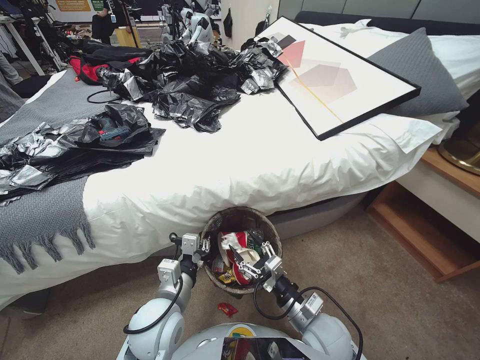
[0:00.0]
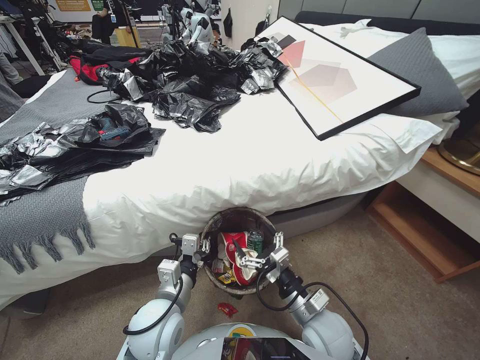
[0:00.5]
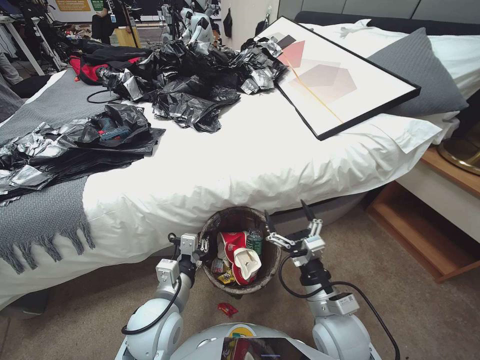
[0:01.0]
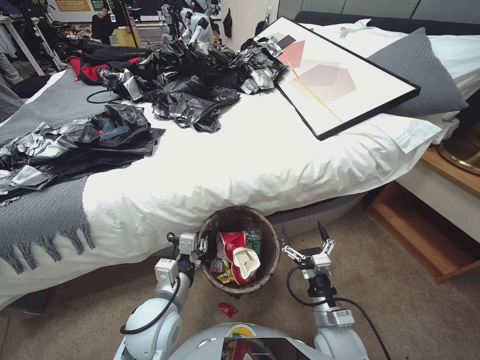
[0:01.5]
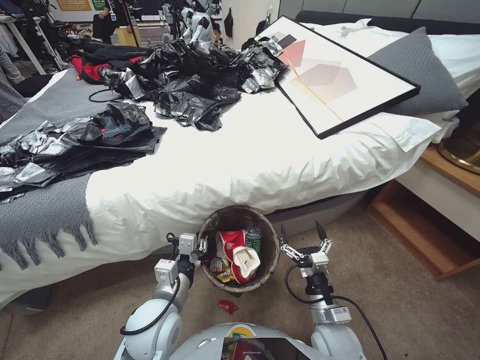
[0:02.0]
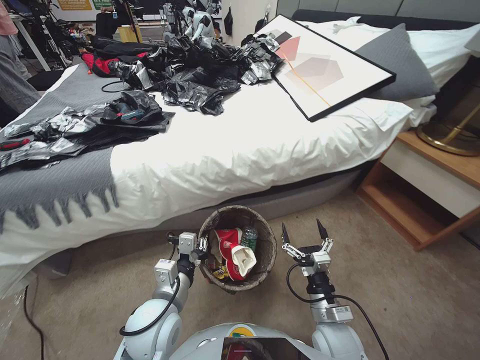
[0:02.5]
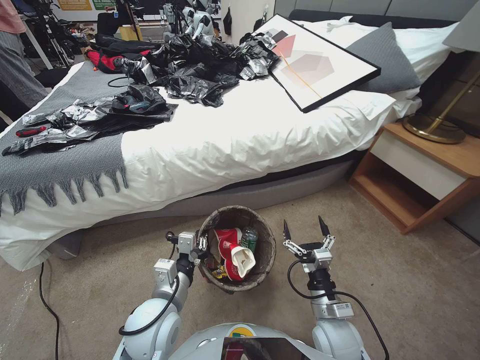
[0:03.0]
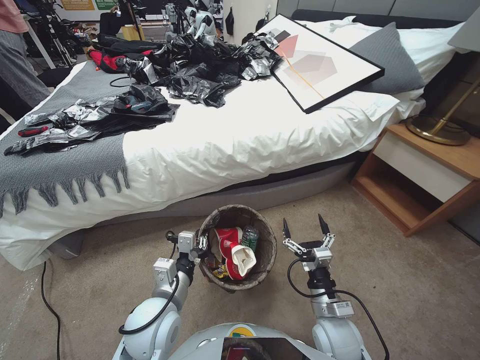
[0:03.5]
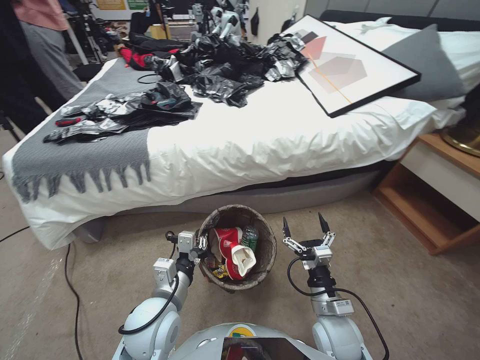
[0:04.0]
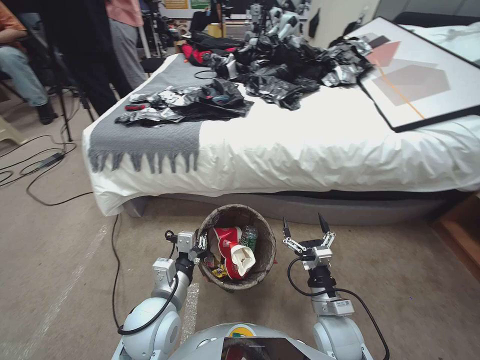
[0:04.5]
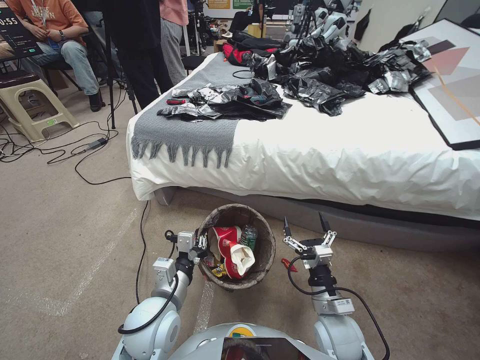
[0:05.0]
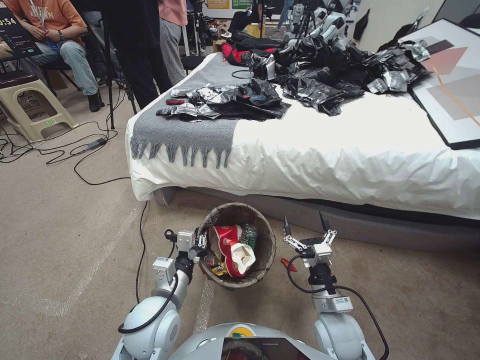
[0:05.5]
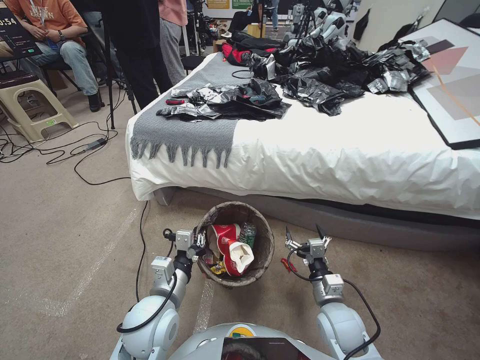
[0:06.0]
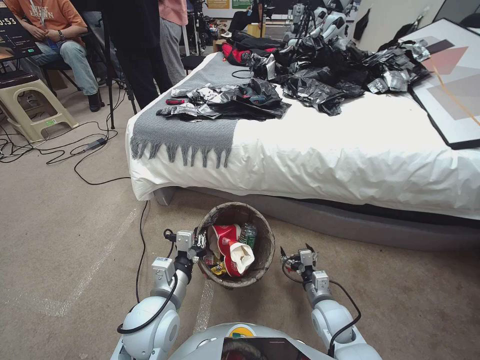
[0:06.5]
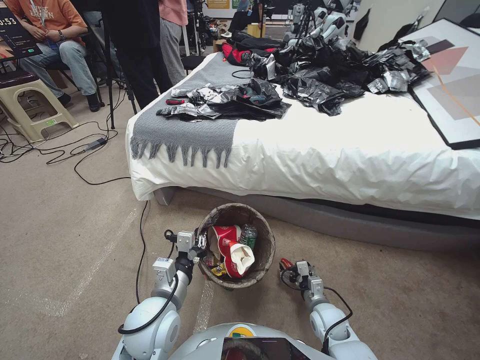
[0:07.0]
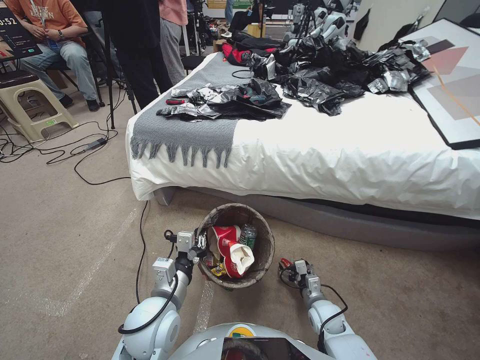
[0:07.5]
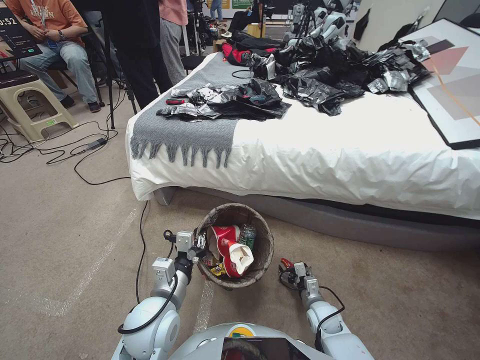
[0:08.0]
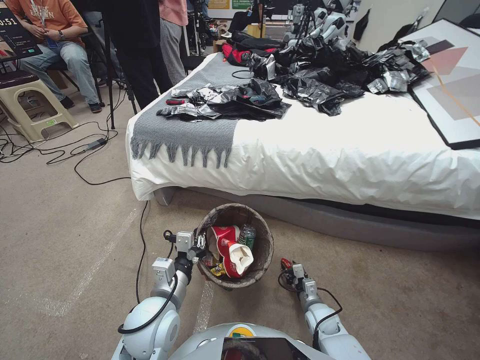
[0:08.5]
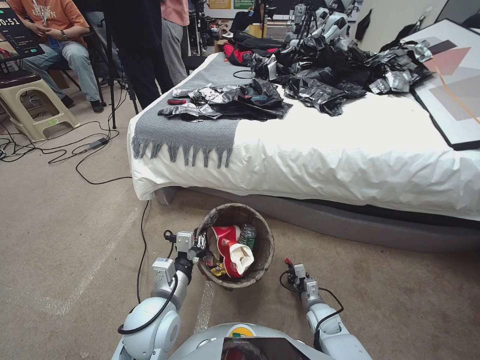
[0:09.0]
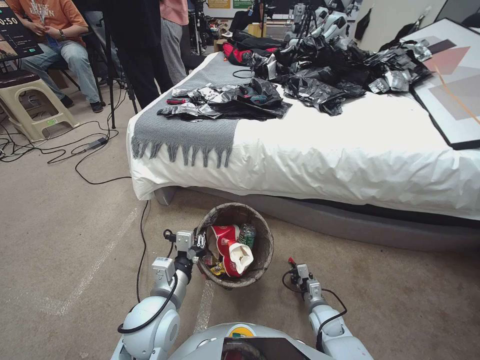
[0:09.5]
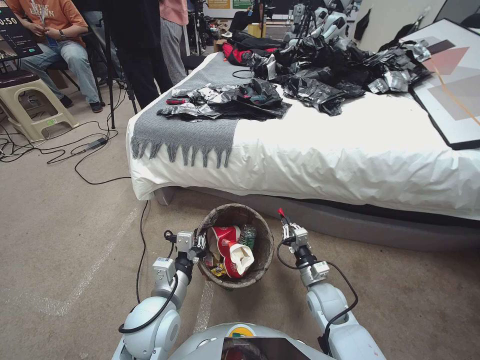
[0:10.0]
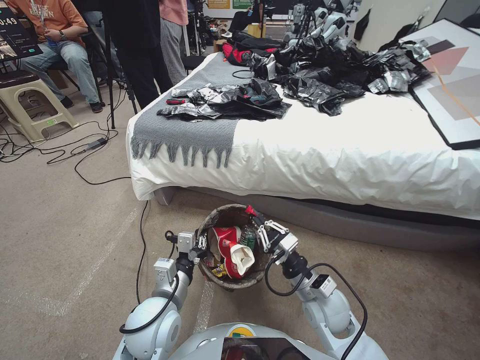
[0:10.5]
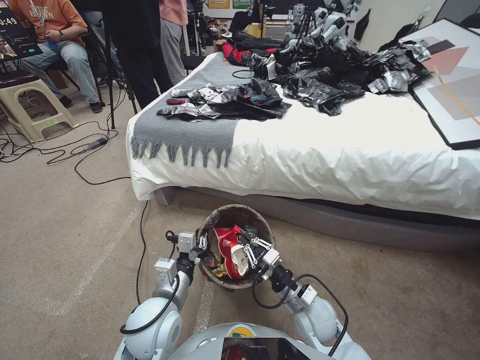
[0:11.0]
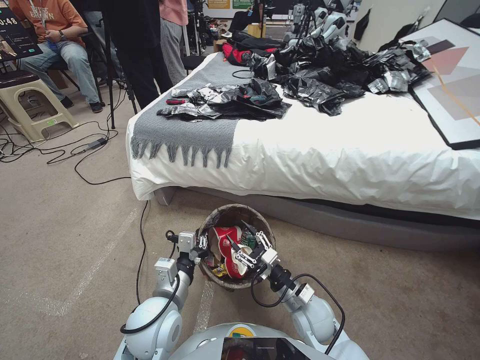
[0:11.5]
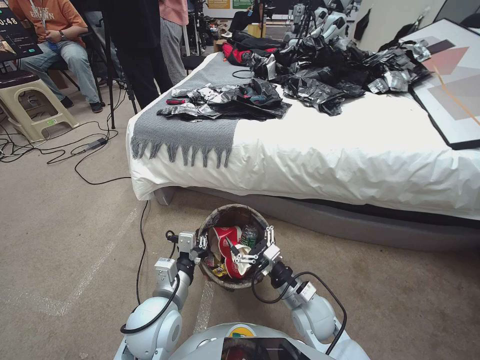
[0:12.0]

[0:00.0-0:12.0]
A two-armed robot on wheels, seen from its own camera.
Task of the whole recording: Pick up the trash bin, then pick up the garbage from the floor and place it into the trash bin.
0:00.0 to 0:02.0: The right gripper moves some 5 cm upward and comes back, and opens its fingers.
0:06.0 to 0:08.0: The right gripper is displaced downward by approximately 15 cm.
0:08.0 to 0:10.0: The right gripper goes some 10 cm upward, and closes up.
0:10.0 to 0:12.0: The right gripper goes some 10 cm to the left and upward, and opens its fingers.

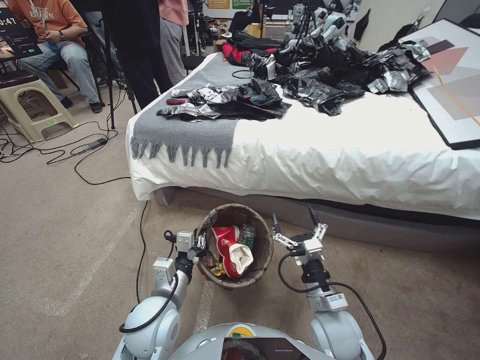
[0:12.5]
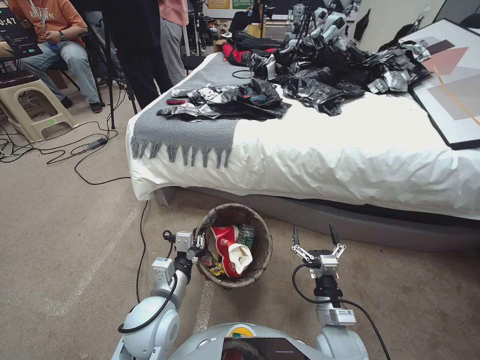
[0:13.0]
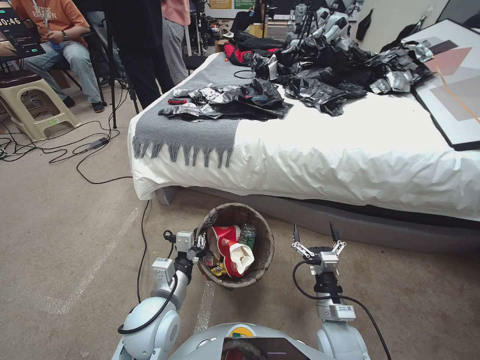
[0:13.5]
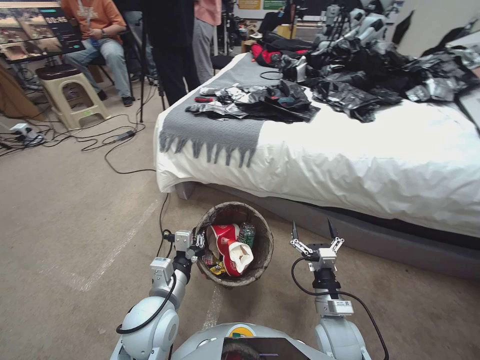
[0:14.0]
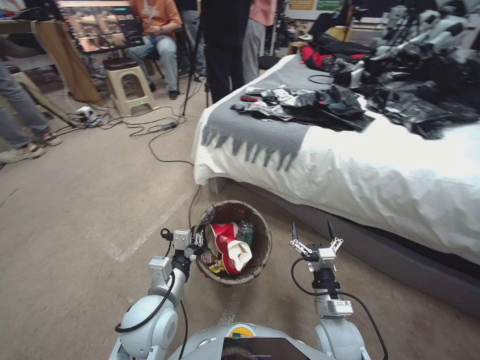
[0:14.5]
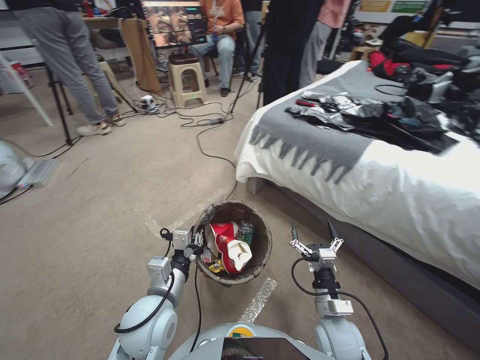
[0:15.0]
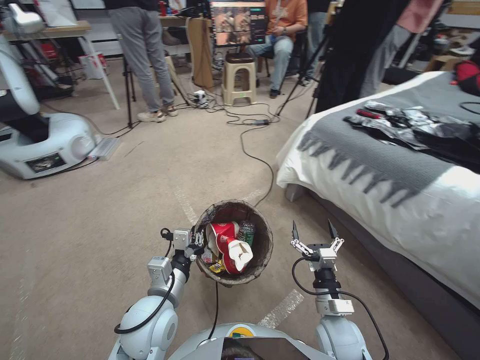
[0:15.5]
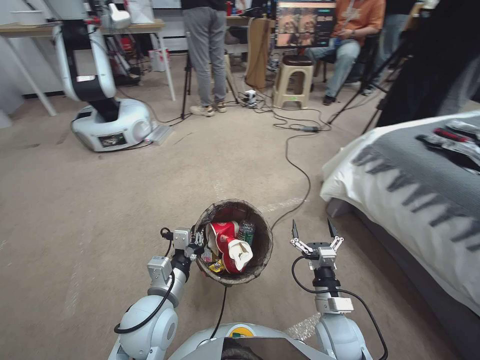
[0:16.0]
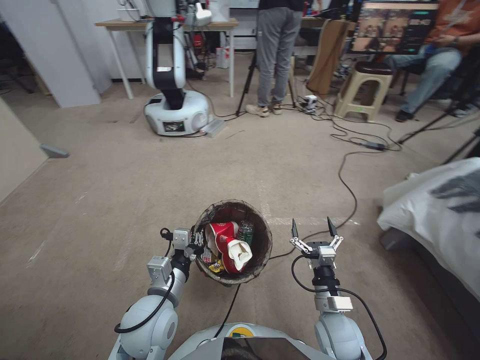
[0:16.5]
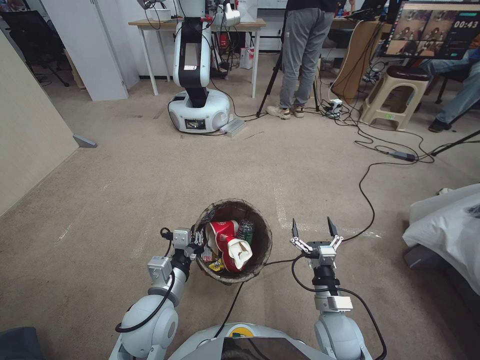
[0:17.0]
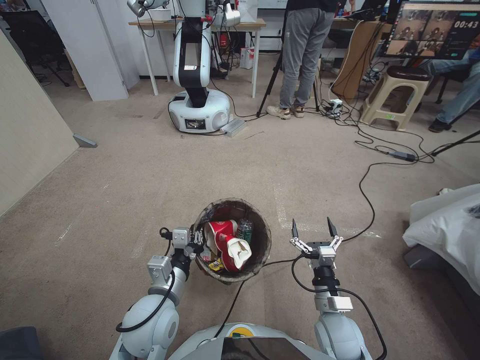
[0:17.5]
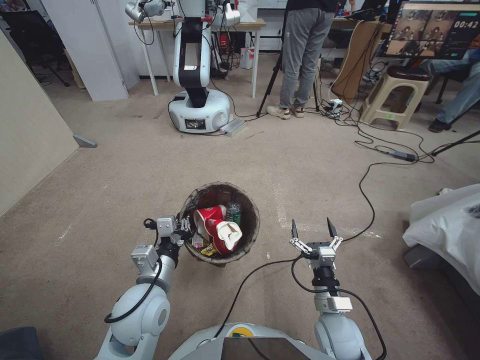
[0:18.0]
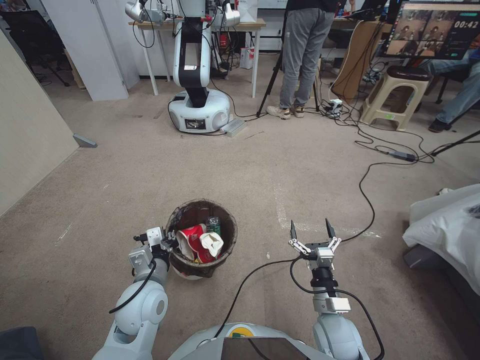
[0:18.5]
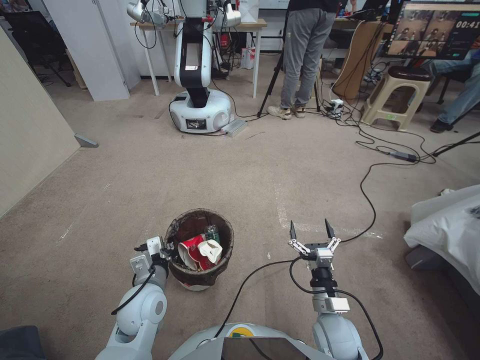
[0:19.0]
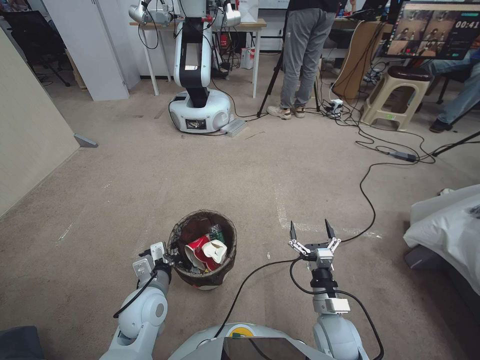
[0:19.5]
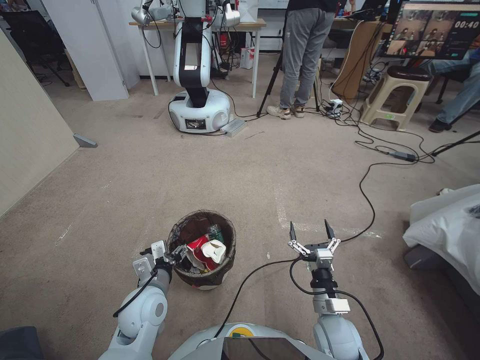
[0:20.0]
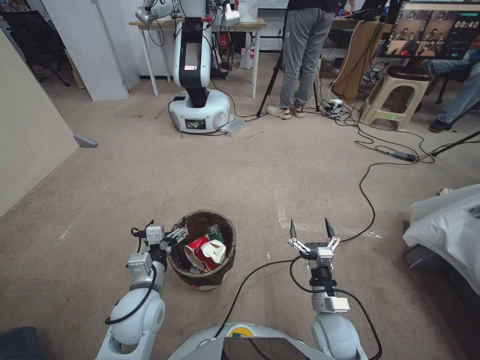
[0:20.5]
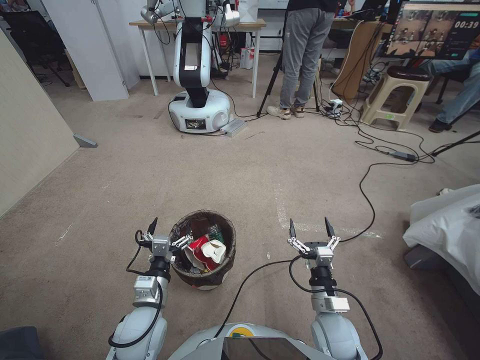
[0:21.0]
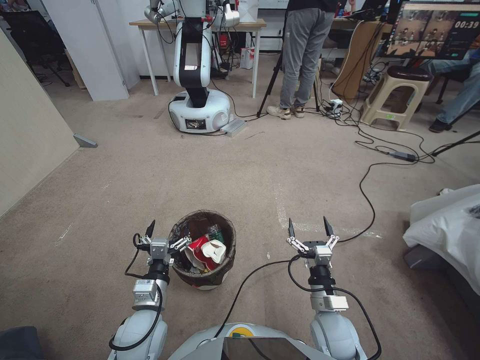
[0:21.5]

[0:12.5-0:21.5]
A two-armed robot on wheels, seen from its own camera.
Task of the whole recording: Pick up the trash bin, then pick up the garbage from the floor and place it into the trash bin.
0:12.5 to 0:14.5: The right gripper travels downward by approximately 5 cm.
0:17.0 to 0:19.5: The left gripper travels downward by some 5 cm.
0:19.5 to 0:21.5: The left gripper opens its fingers.
